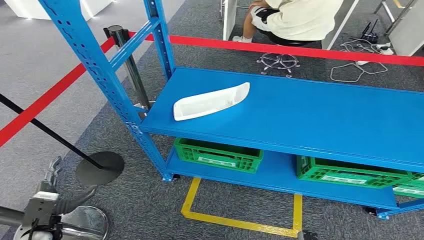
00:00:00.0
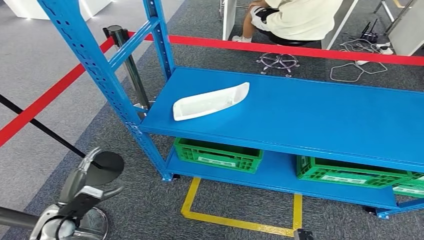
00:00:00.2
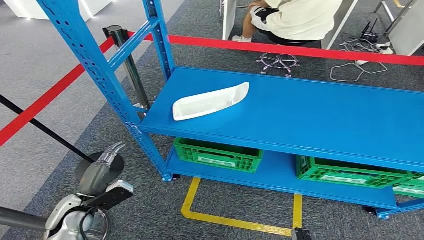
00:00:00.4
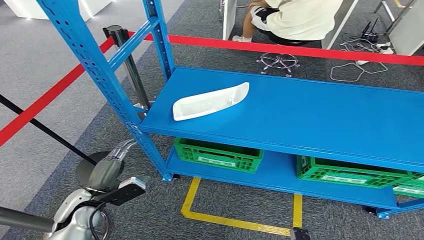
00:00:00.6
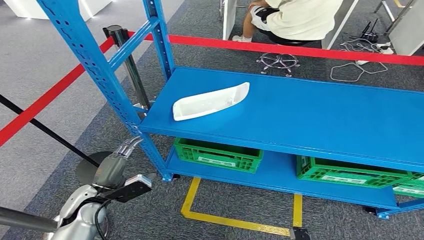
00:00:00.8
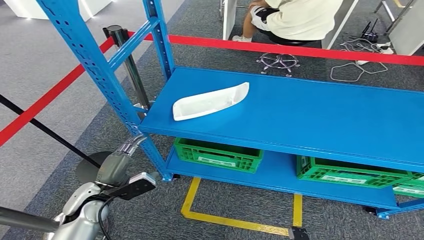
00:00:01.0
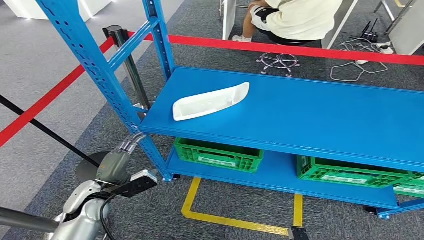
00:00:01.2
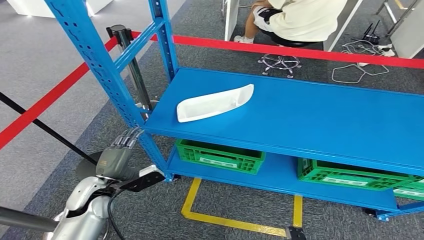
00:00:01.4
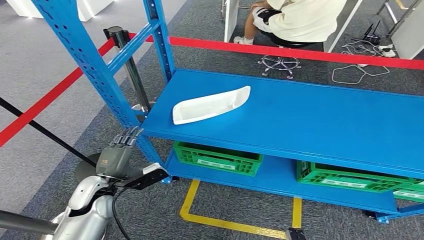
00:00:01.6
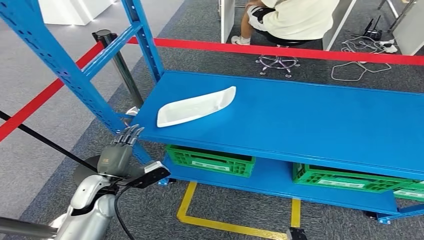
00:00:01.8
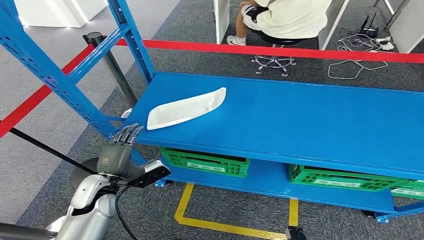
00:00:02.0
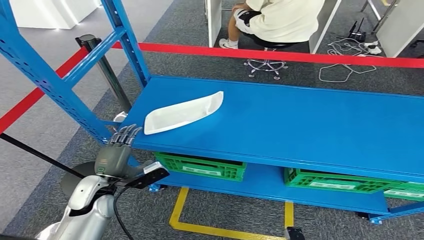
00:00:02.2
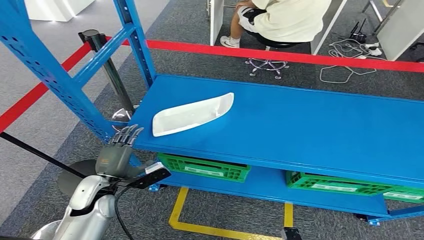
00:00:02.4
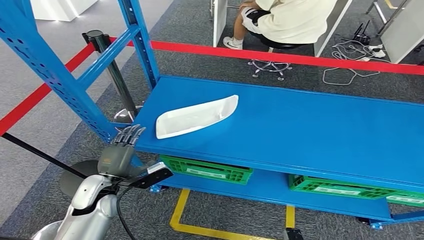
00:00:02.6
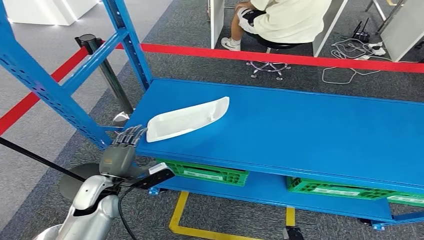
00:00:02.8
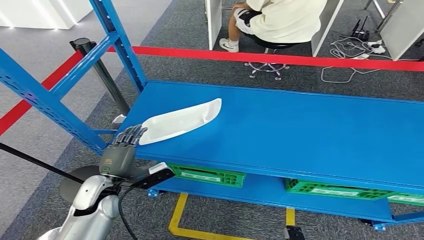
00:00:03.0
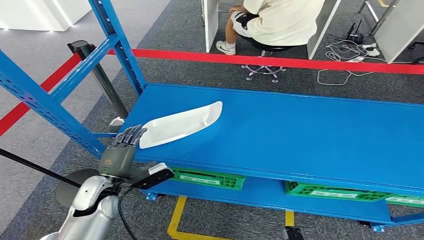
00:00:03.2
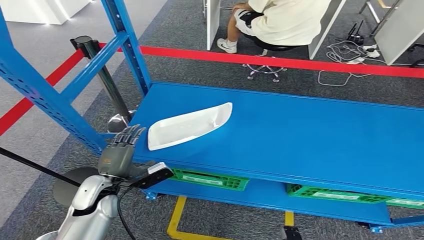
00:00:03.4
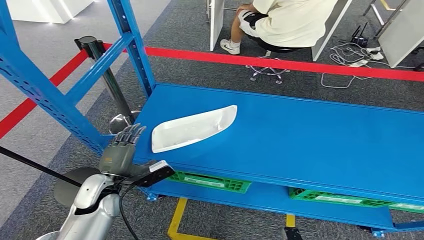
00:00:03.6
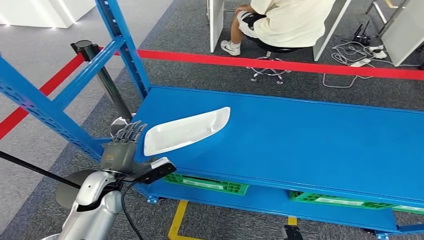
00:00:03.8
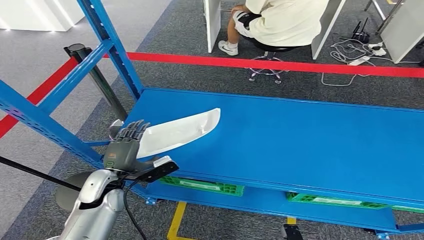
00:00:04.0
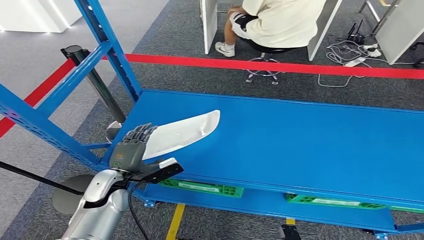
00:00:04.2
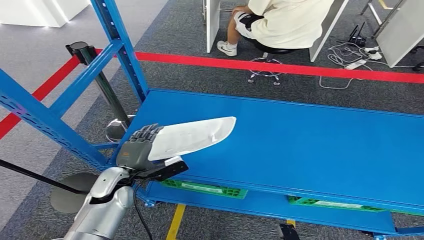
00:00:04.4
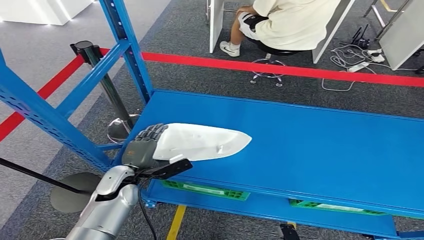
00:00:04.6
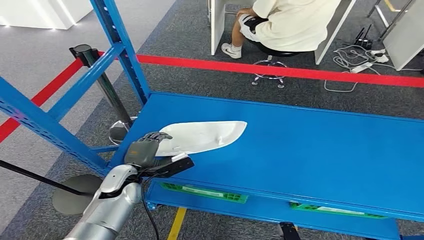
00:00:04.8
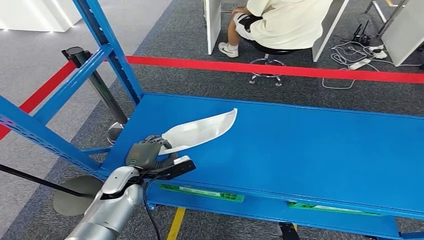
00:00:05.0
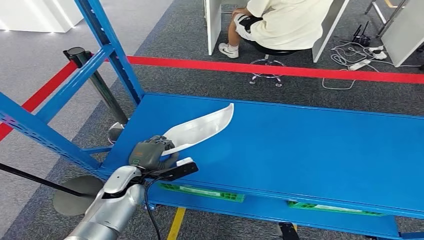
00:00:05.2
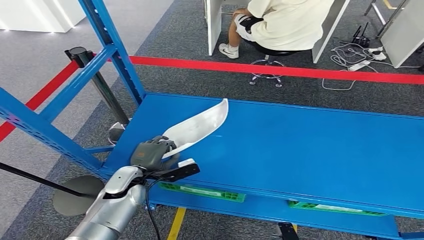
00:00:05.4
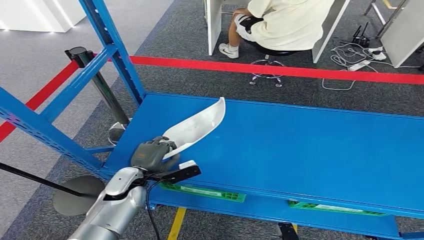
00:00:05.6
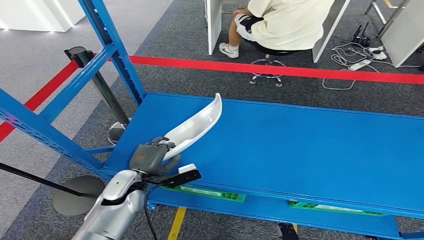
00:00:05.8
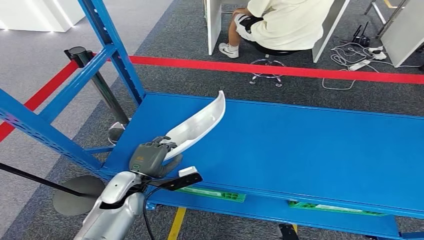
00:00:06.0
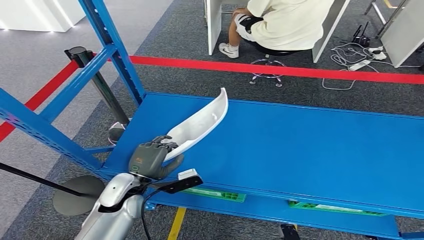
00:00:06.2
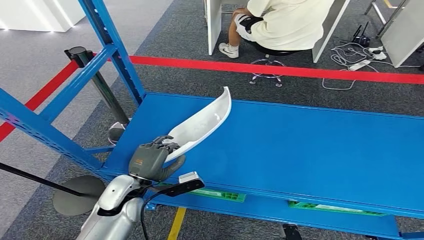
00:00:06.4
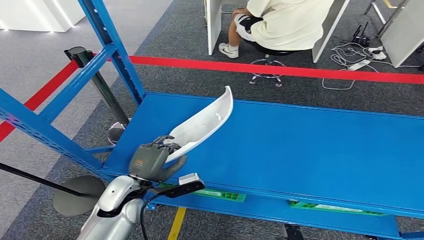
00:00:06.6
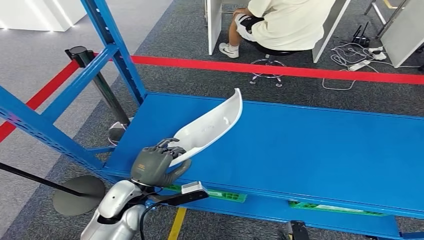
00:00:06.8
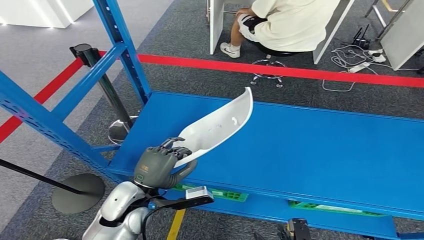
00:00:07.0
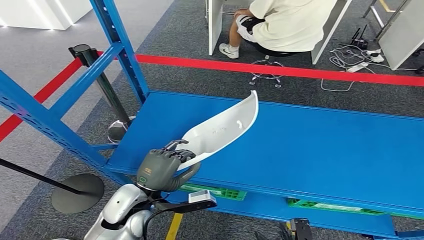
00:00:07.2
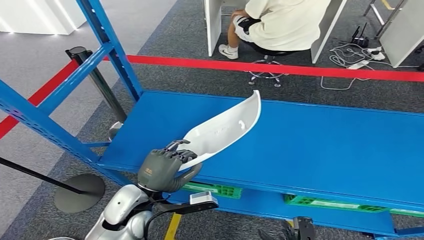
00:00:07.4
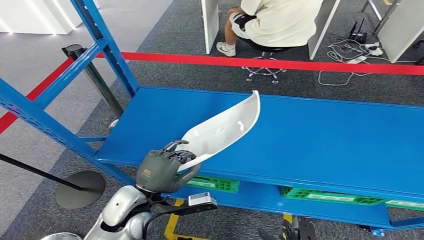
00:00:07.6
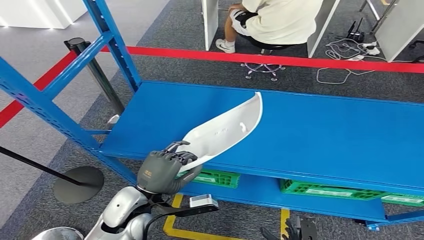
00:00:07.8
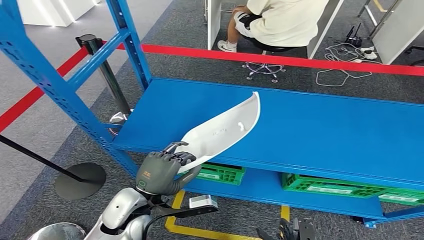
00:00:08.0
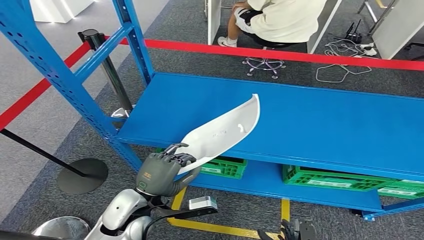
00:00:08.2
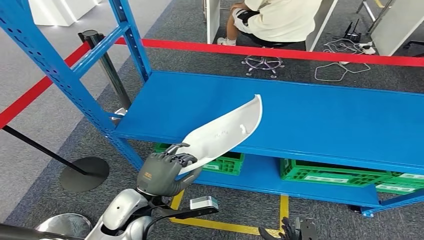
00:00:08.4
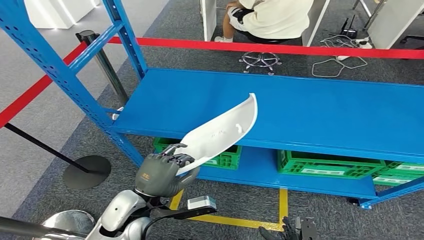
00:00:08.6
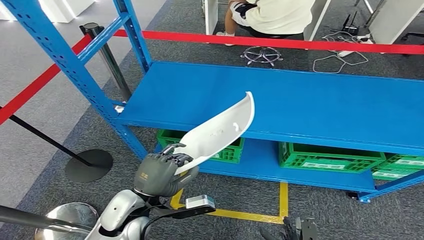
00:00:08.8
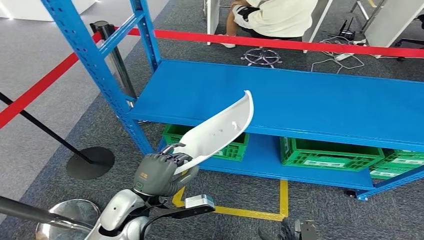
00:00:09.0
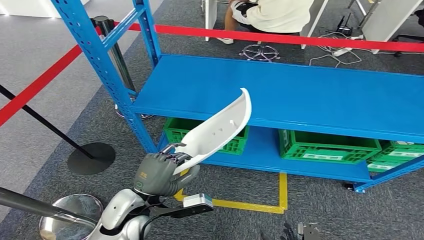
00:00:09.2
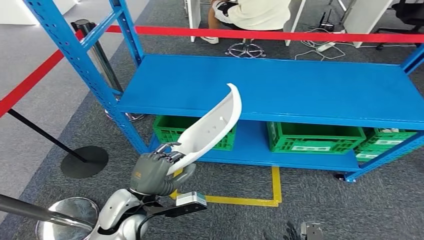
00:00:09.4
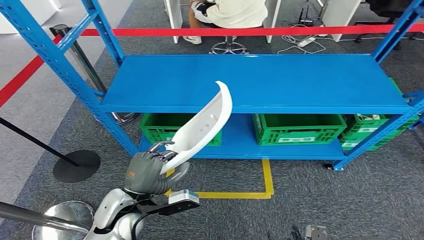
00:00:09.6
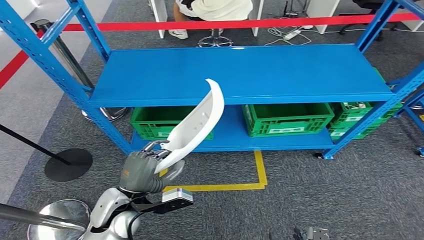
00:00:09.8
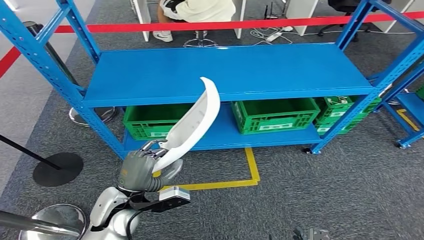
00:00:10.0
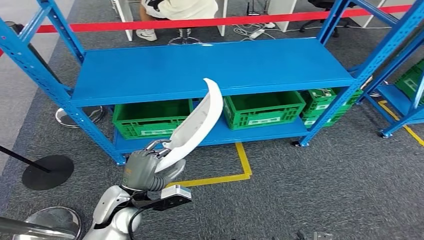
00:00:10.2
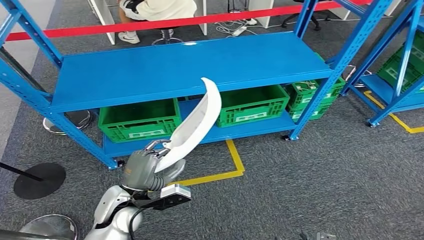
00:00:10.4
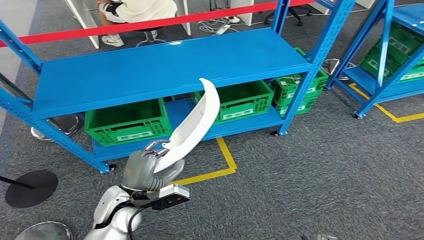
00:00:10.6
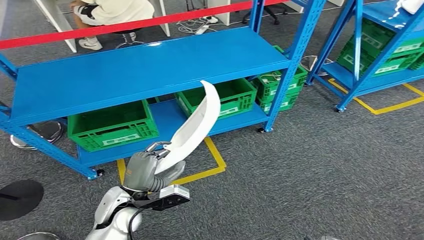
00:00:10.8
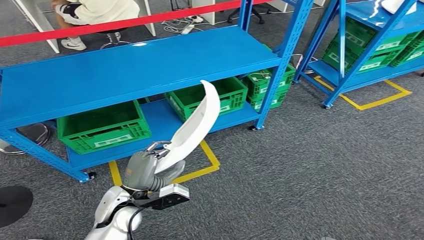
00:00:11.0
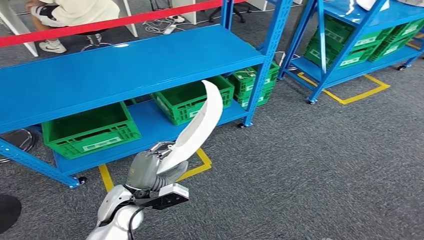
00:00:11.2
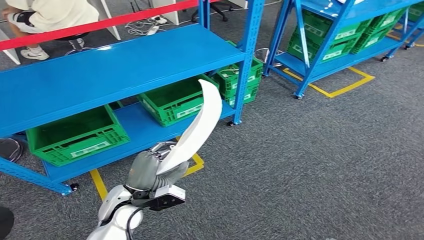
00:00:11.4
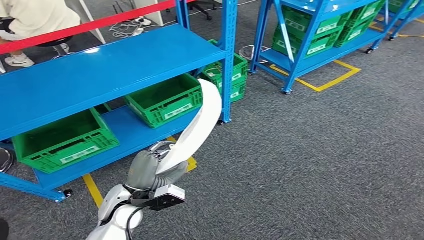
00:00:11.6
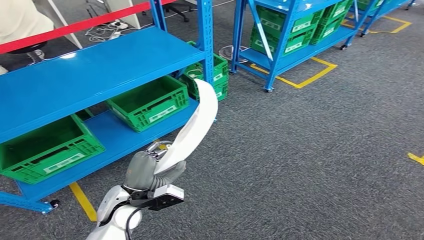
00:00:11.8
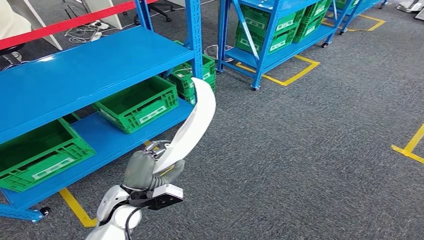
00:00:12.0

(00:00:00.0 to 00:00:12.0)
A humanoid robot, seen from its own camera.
Step, 00:00:00.0 - 00:00:08.0: Pick up the small component from the shelf.

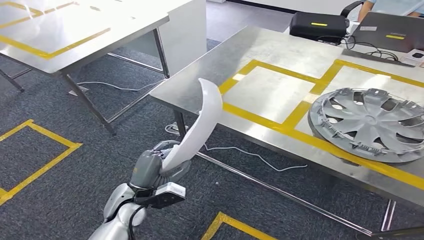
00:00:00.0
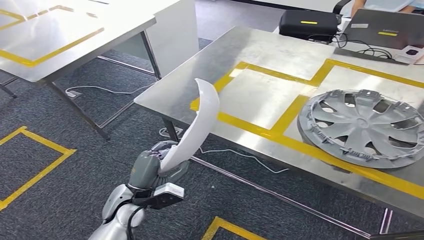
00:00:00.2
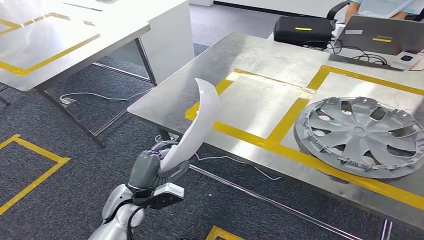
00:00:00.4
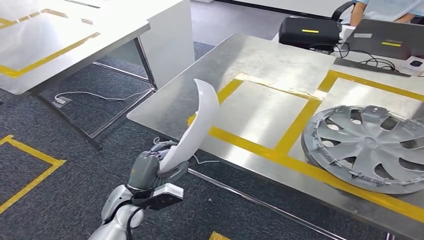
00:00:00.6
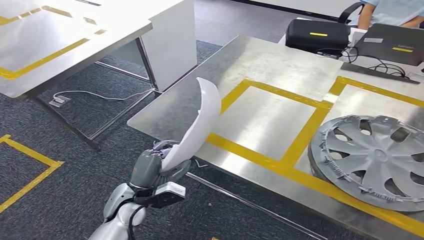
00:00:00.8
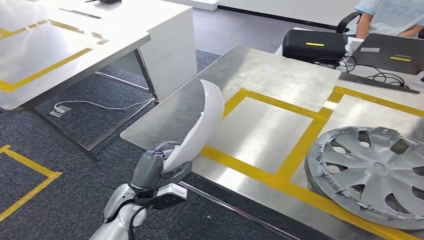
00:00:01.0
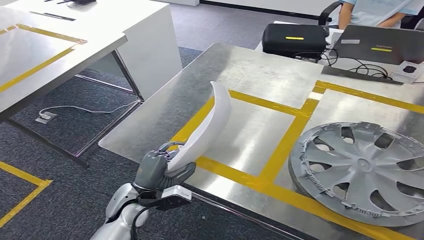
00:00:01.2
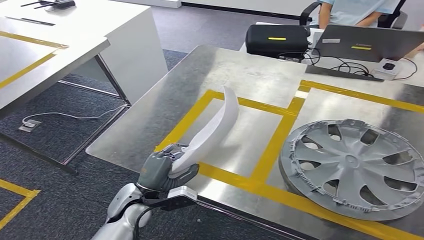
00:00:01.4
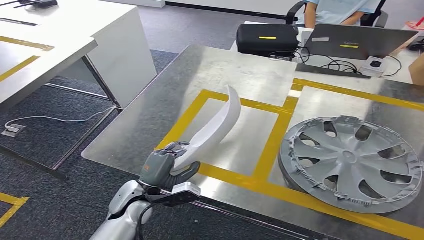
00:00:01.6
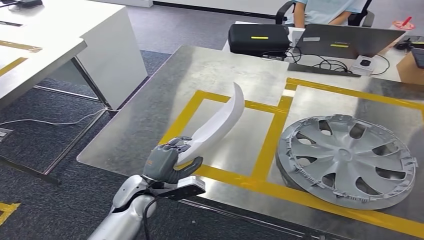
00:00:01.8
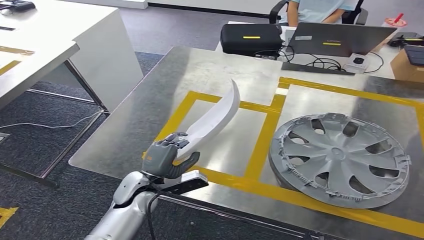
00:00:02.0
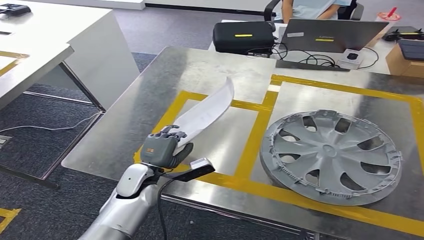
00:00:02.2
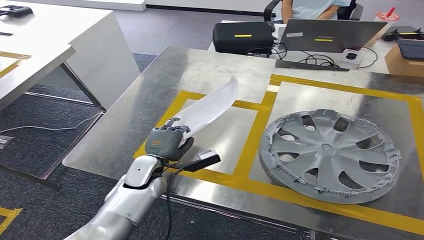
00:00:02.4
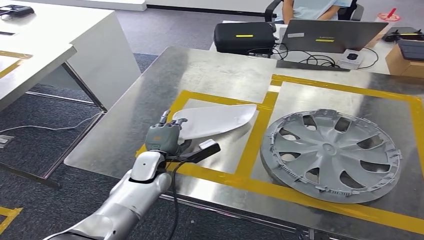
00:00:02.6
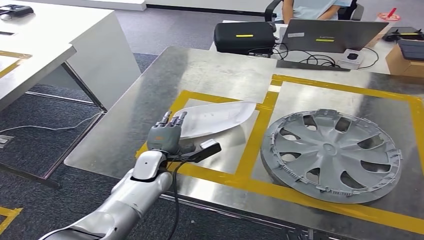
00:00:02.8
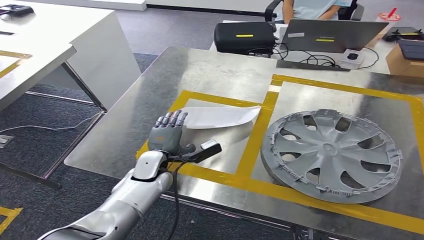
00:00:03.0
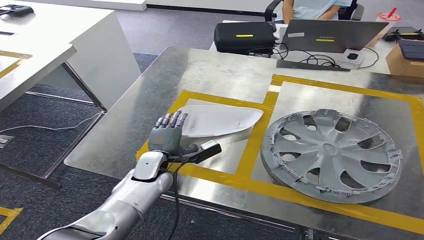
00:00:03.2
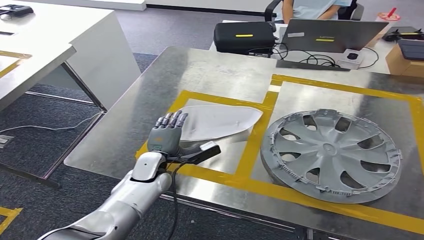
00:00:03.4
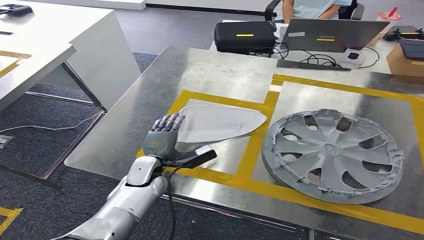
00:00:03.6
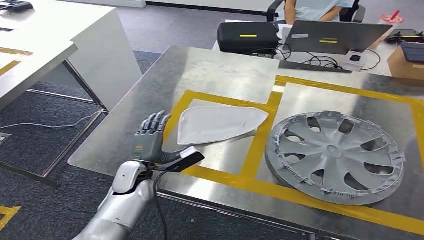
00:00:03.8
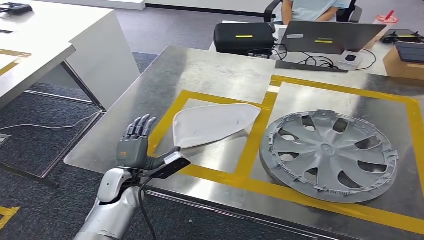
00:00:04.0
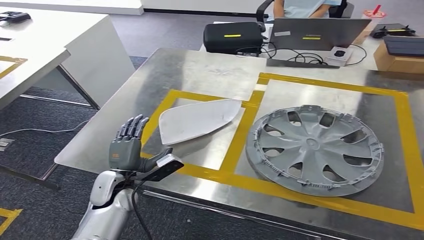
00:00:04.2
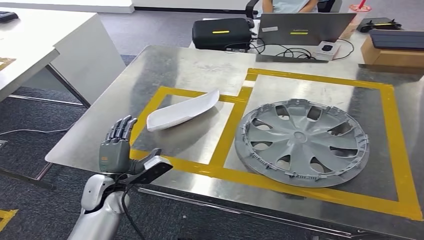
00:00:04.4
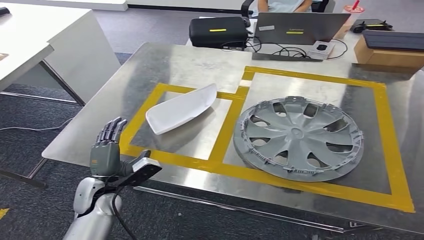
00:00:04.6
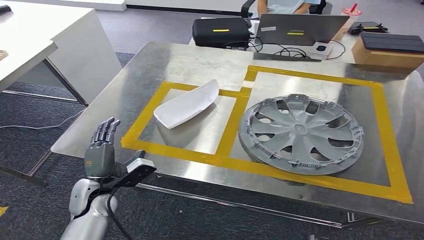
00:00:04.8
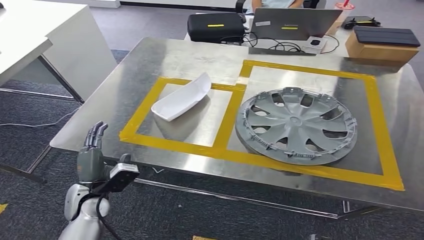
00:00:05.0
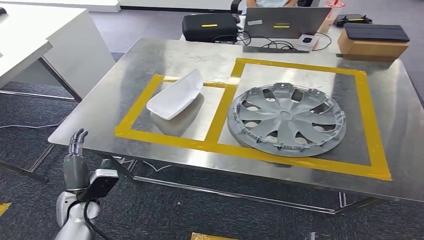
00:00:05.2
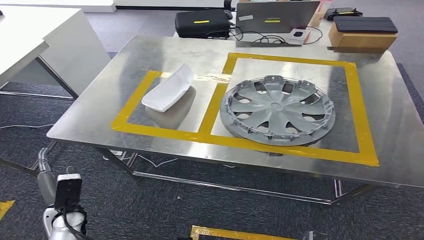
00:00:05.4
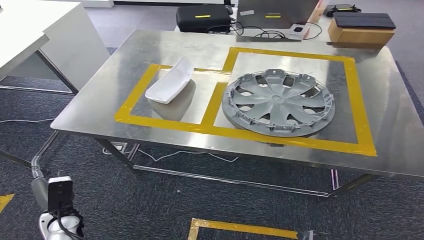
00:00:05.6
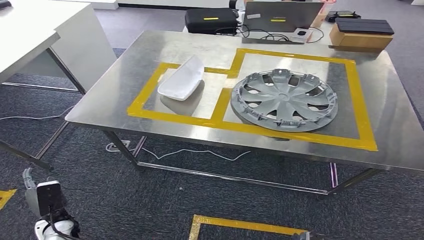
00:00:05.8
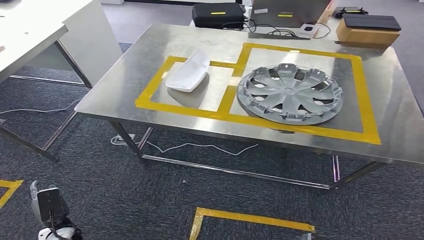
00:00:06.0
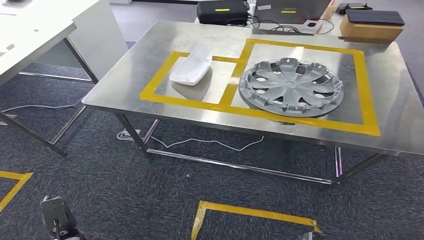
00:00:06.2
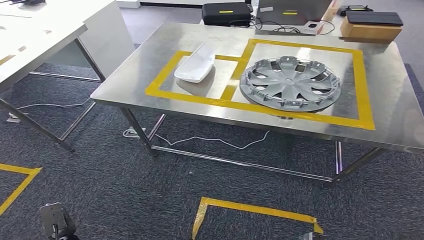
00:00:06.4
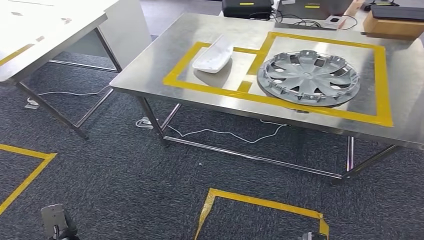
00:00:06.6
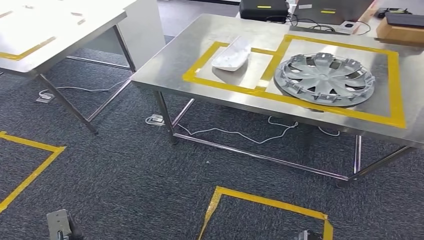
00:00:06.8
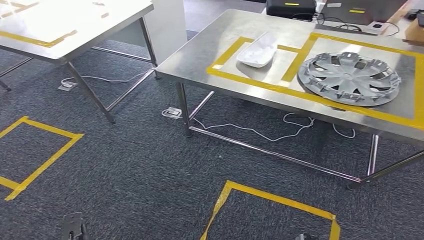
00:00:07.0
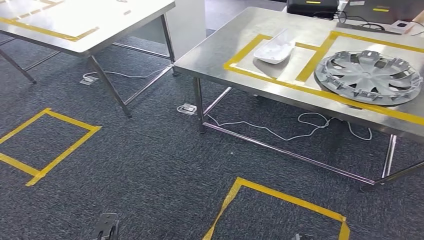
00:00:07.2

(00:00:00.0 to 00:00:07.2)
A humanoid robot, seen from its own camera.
Step, 00:00:01.4 - 00:00:04.0: Insert the small component into the corresponding slot on the workbench.
